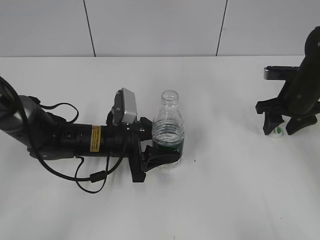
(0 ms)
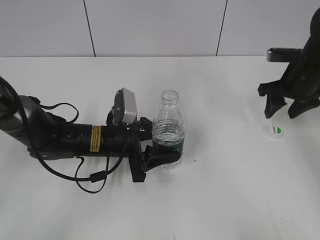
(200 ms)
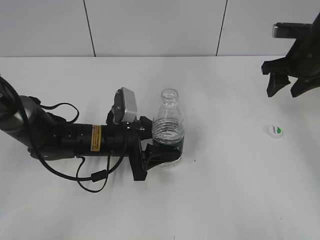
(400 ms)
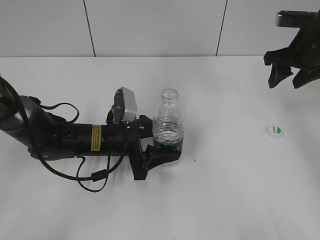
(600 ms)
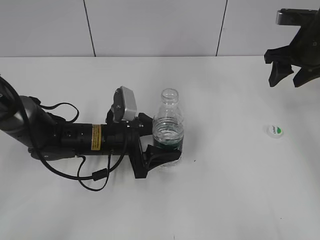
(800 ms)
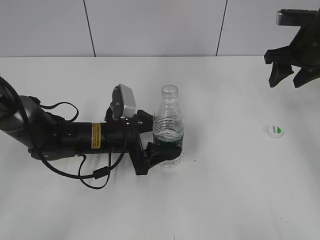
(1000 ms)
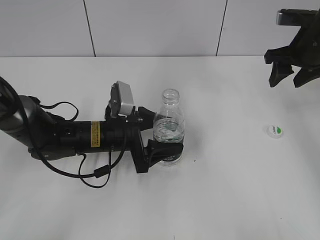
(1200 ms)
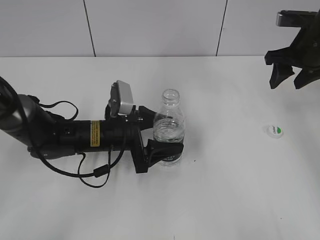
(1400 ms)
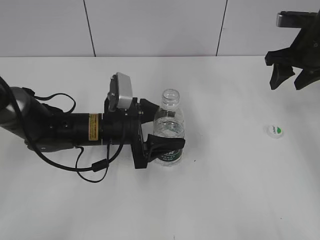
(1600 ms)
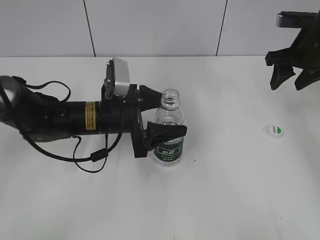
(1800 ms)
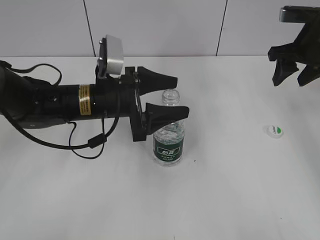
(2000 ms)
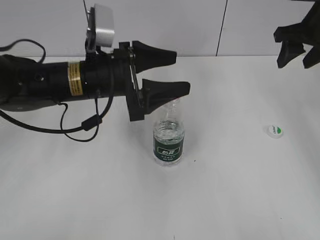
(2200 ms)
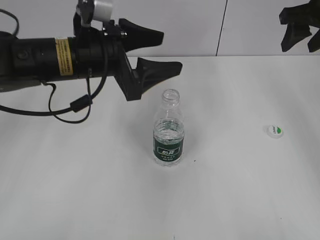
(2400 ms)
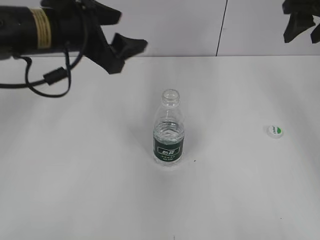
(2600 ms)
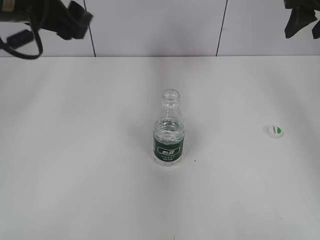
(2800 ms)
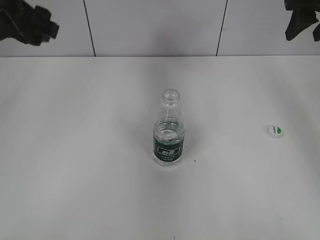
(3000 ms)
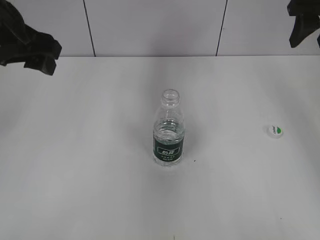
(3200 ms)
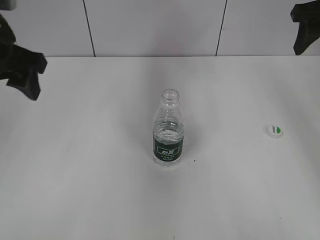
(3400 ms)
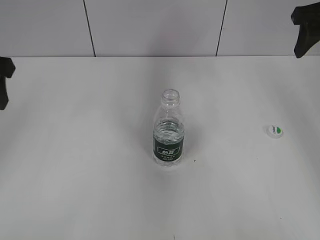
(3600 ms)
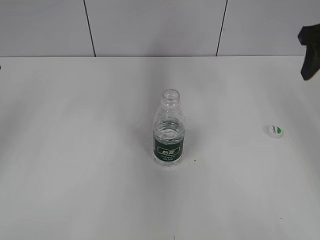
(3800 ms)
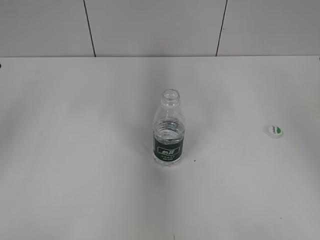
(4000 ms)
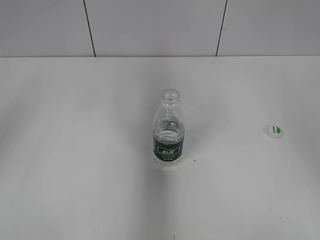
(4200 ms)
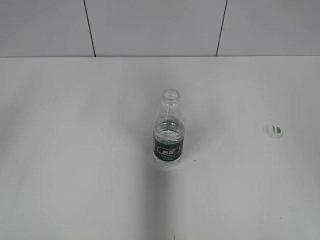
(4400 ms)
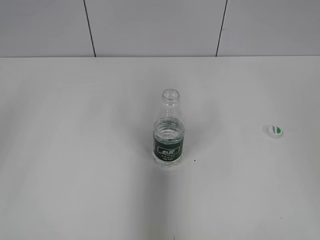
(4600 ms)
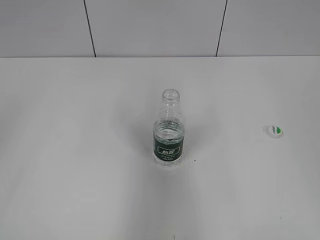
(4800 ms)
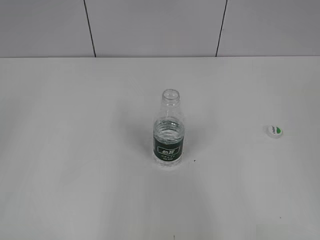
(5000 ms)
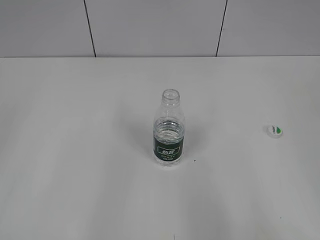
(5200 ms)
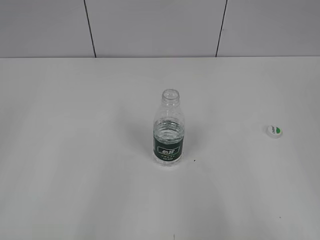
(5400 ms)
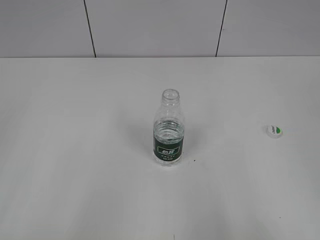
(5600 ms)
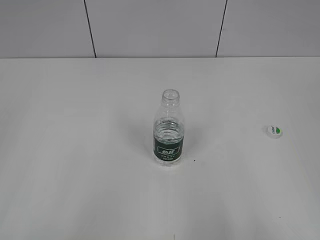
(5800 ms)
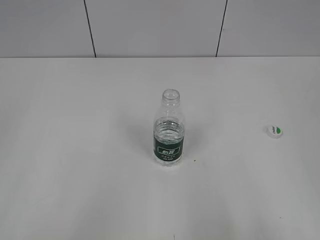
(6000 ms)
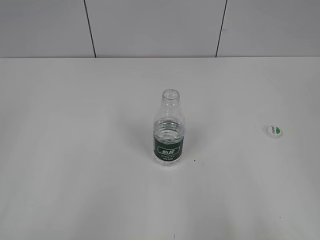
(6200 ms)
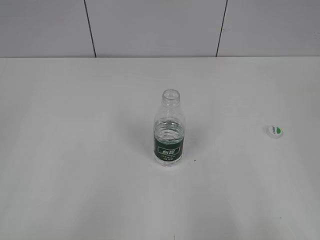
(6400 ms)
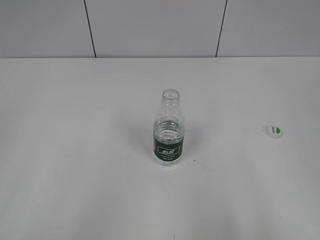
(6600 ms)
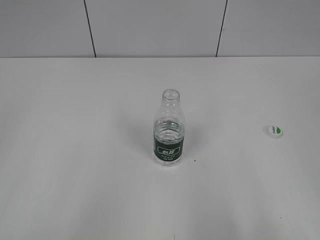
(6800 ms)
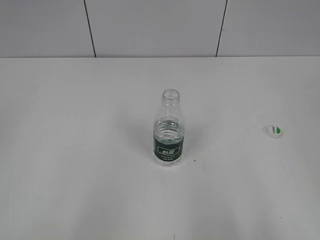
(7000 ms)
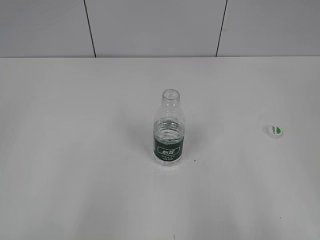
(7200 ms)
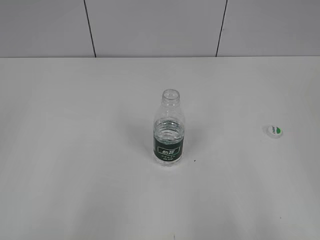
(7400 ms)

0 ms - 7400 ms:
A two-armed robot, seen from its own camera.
Step, 200 ms - 2000 ms: Place the bottle on the table with the left gripper.
0 ms - 1400 ms: The left gripper opens; the right gripper goes about 10 cm upward.
1400 ms - 3000 ms: The right gripper moves upward, roughly 10 cm, while the left gripper goes roughly 30 cm upward and to the left.
3000 ms - 4400 ms: The right gripper heads backward, covering some 20 cm. Meanwhile the left gripper shifts about 10 cm backward and to the left.
4400 ms - 6000 ms: Both grippers travel together backward, approximately 20 cm.
